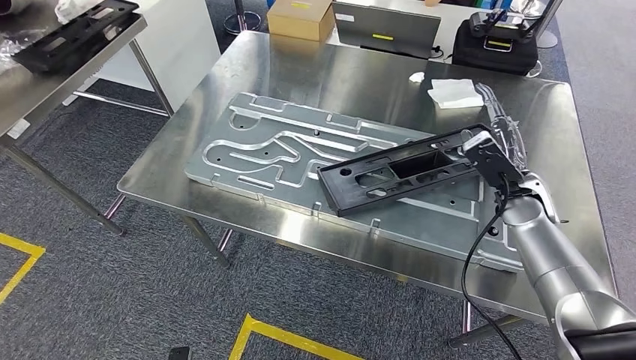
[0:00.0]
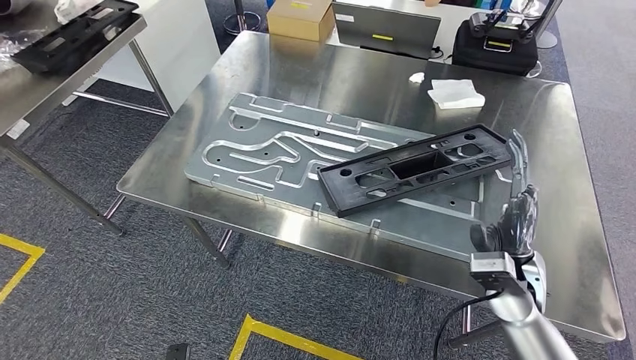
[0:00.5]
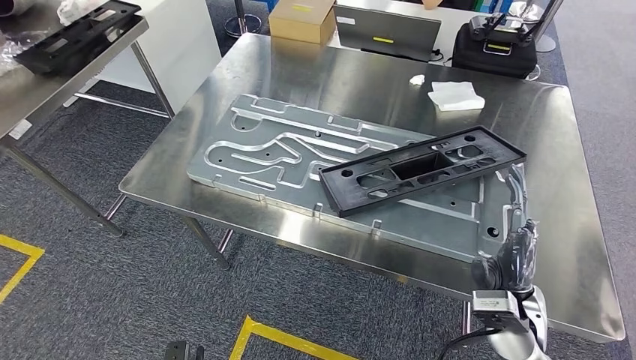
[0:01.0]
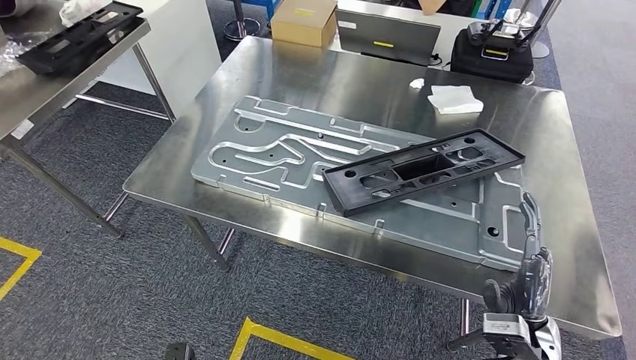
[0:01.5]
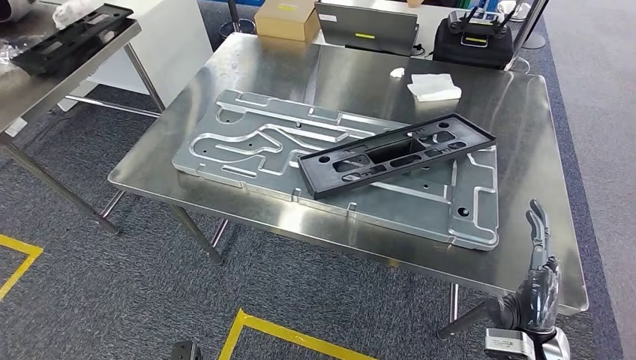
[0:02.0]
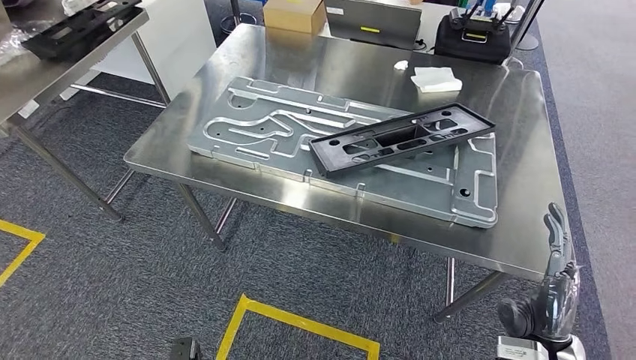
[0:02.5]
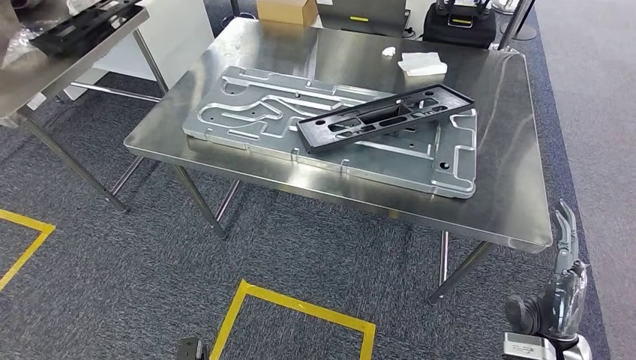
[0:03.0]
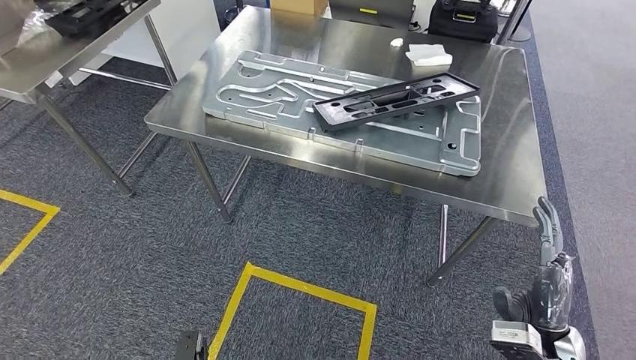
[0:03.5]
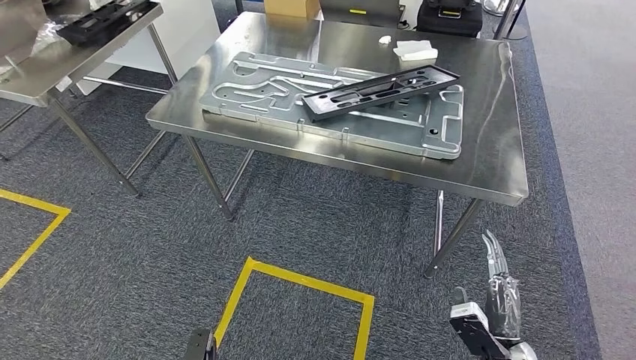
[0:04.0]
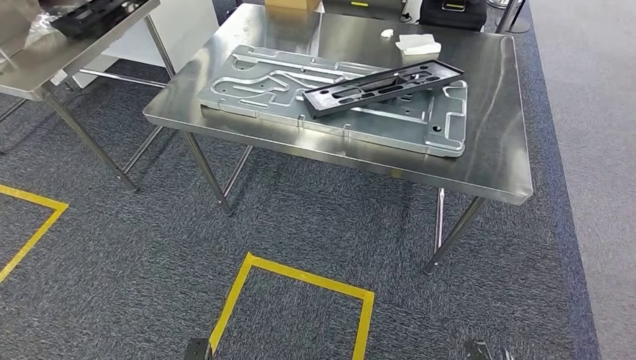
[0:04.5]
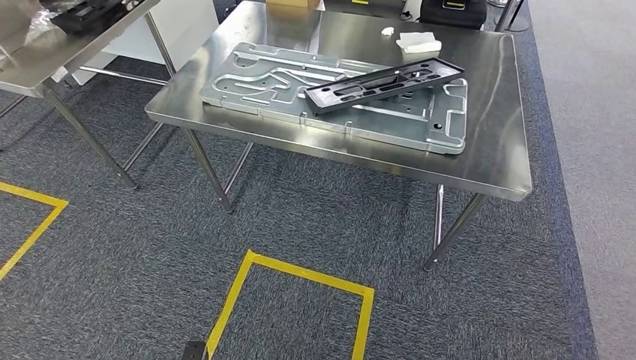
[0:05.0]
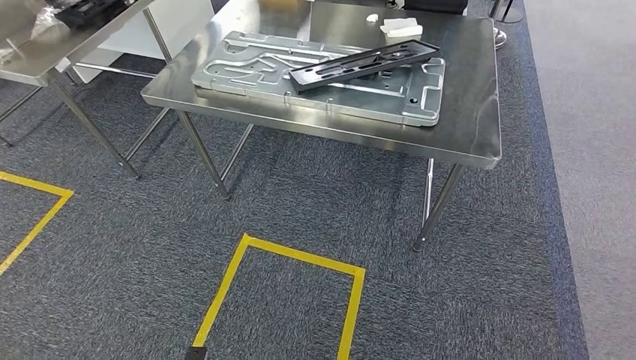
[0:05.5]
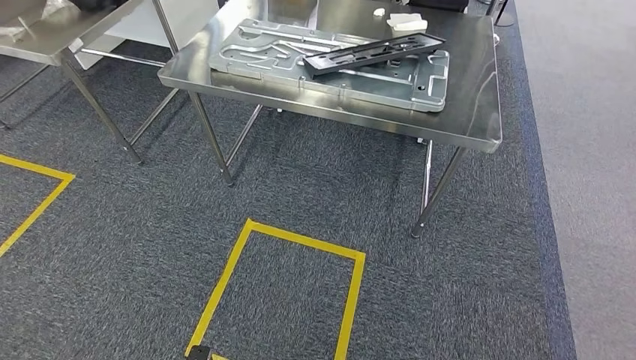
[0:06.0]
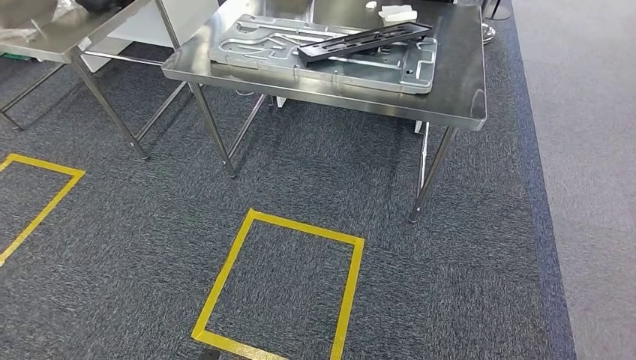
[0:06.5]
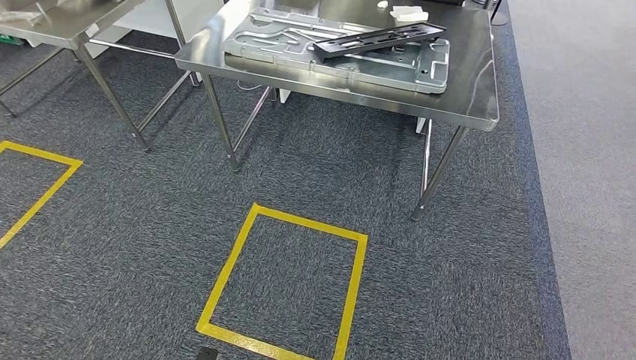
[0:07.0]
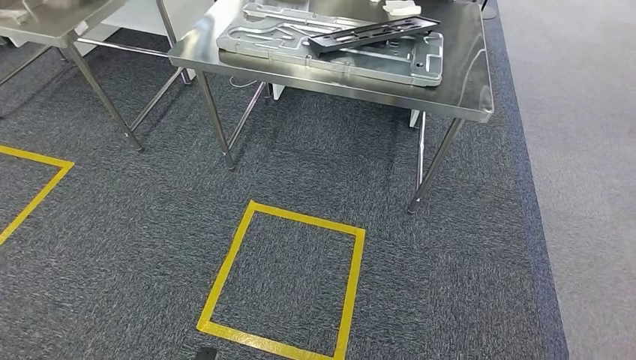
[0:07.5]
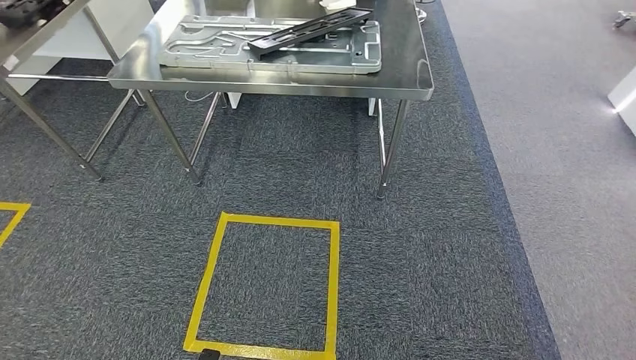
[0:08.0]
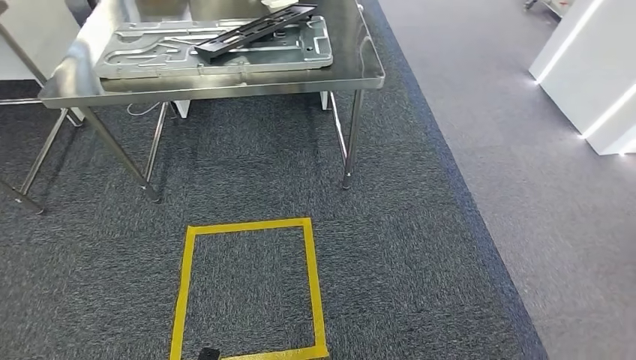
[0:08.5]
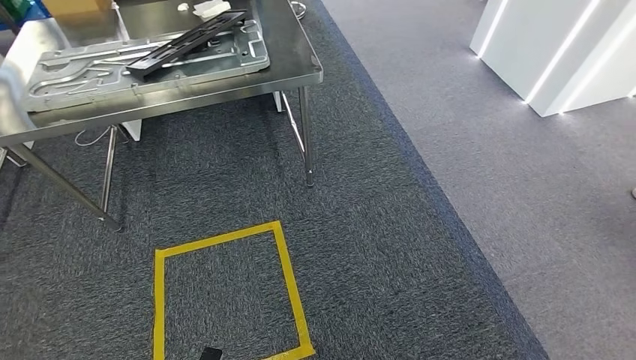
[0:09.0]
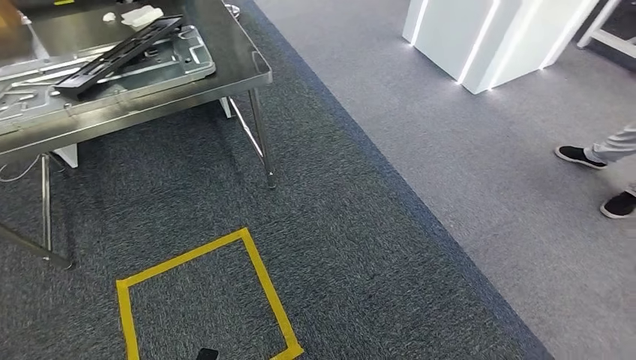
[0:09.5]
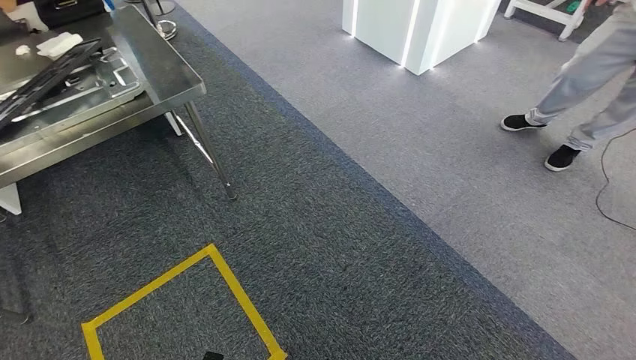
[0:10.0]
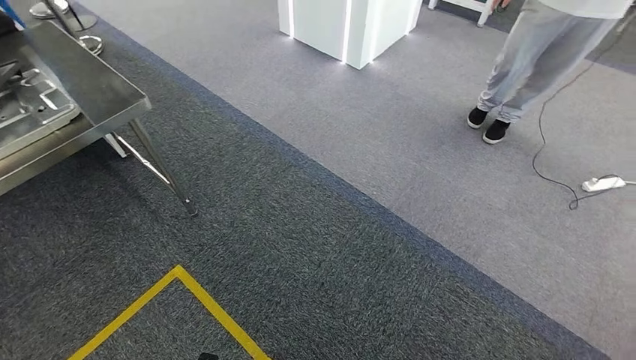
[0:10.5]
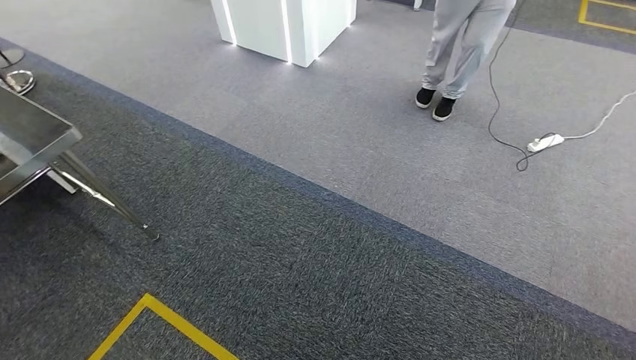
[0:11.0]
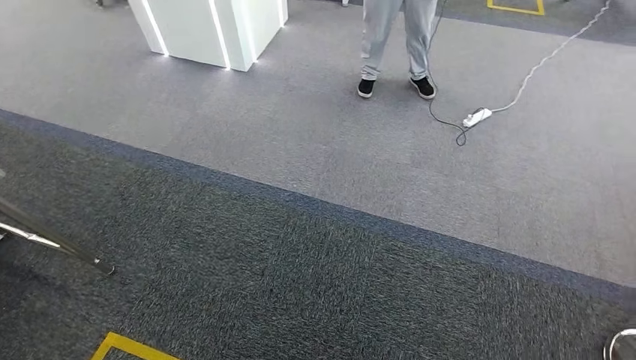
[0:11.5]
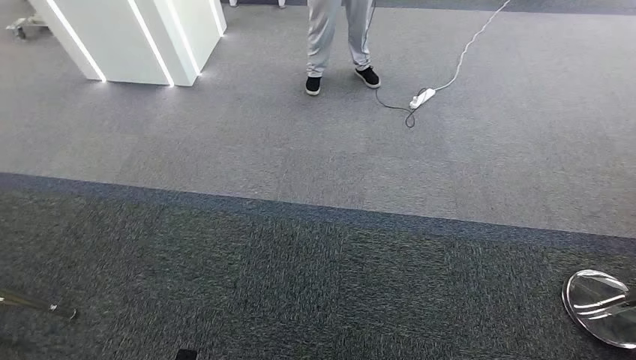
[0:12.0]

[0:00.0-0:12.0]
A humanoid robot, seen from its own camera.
Step, 0:00.0 to 0:03.0: Insert the large material into the corresponding slot on the workbench.

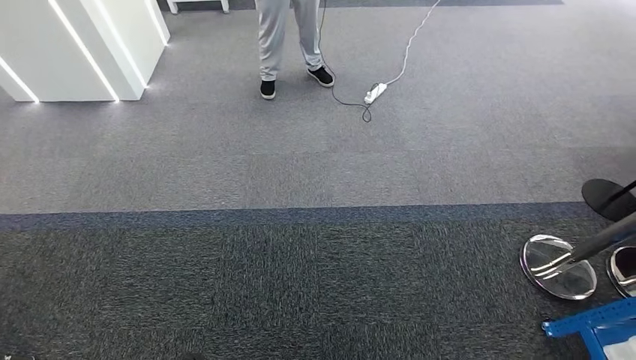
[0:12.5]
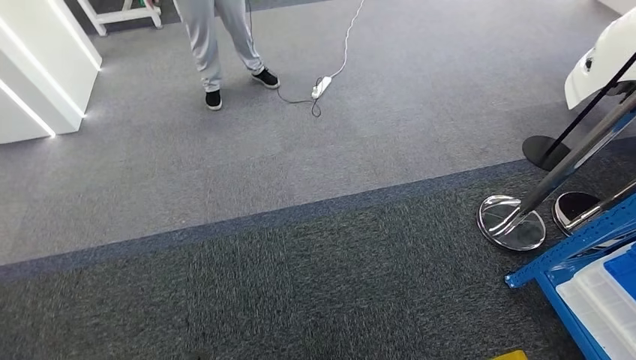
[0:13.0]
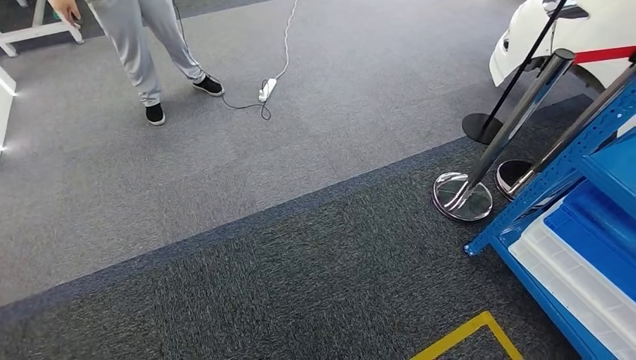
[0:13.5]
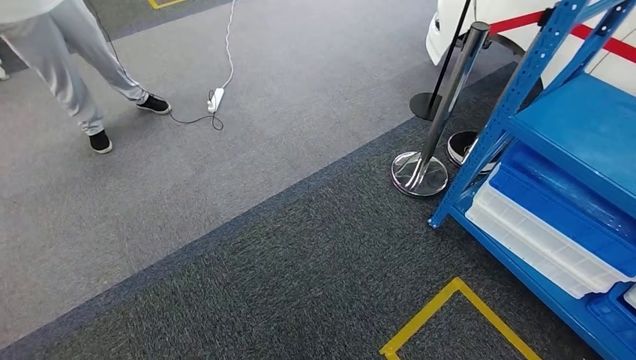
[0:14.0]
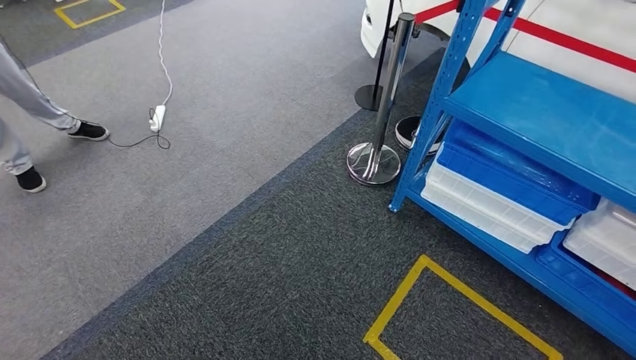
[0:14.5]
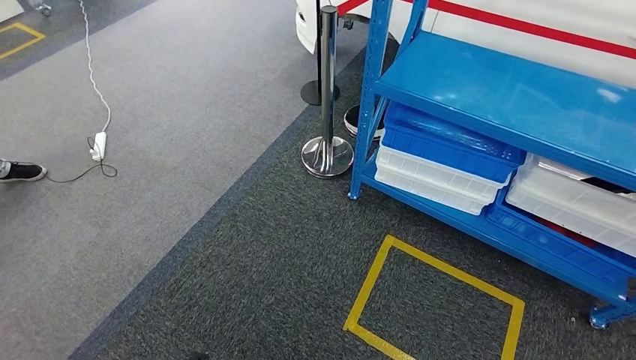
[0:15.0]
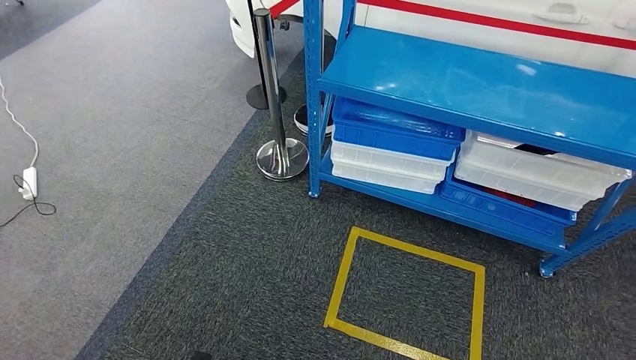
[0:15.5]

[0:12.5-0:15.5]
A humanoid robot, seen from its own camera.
Step, 0:12.5 to 0:15.5: Move to the initial position of the shelf.

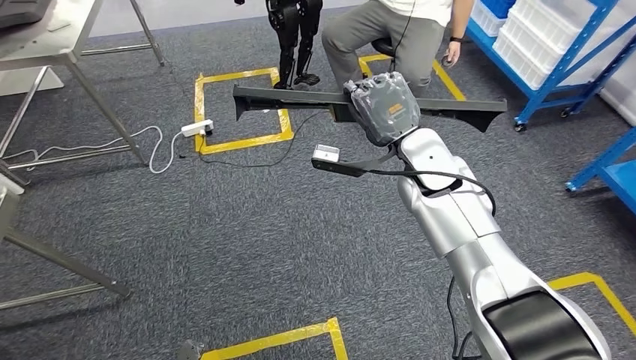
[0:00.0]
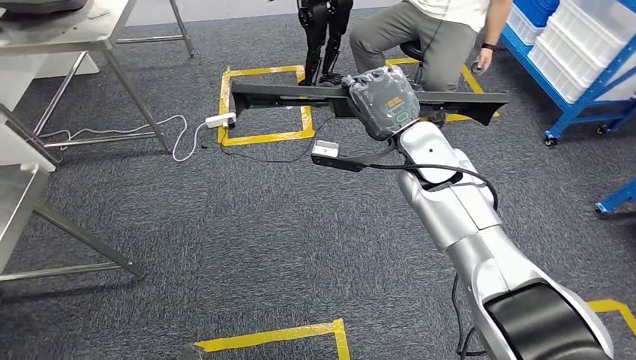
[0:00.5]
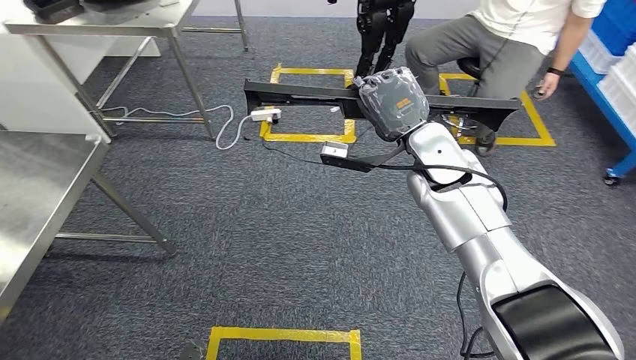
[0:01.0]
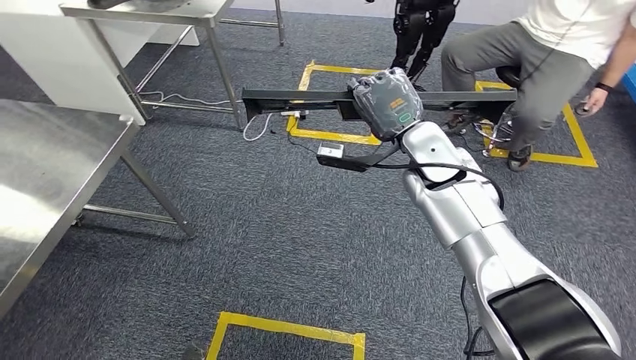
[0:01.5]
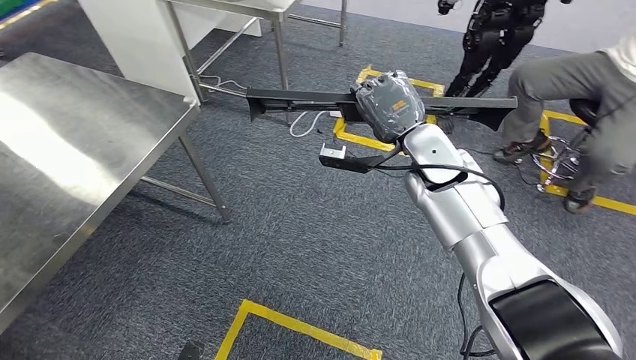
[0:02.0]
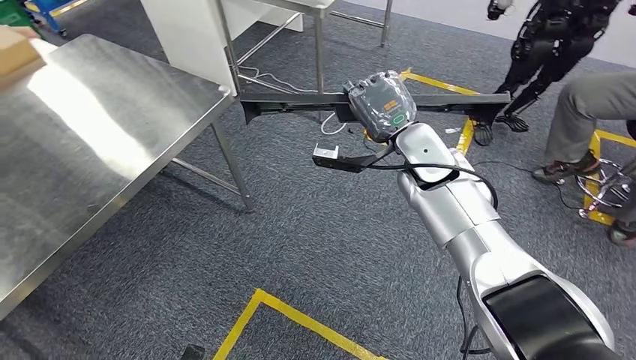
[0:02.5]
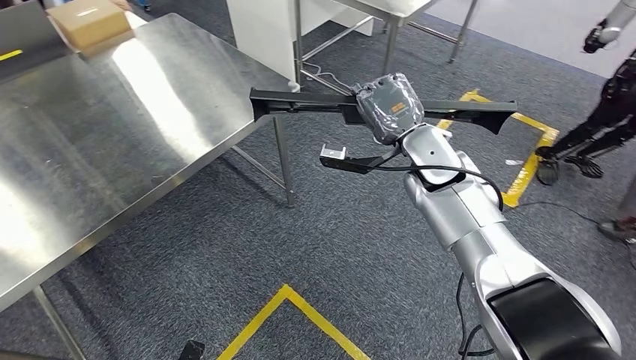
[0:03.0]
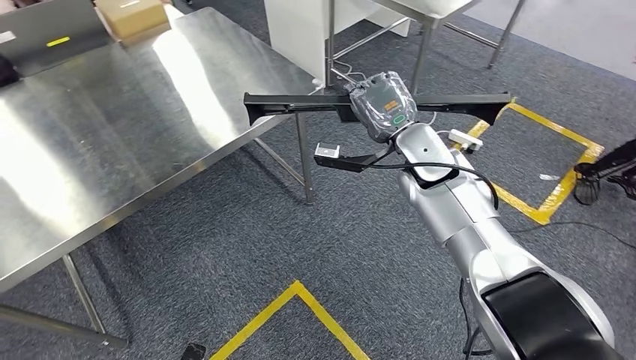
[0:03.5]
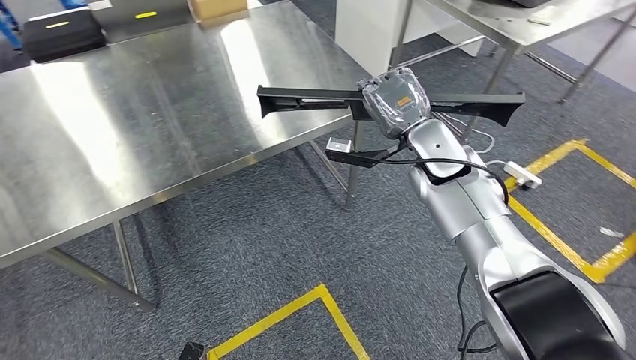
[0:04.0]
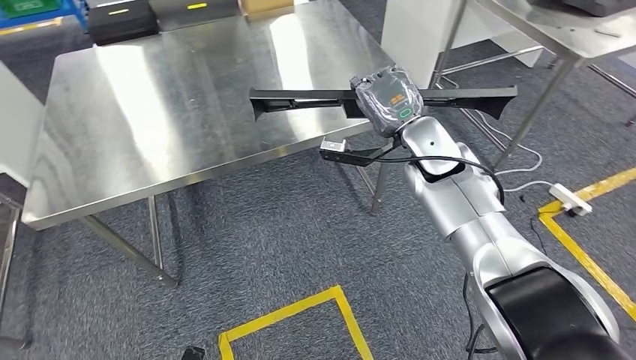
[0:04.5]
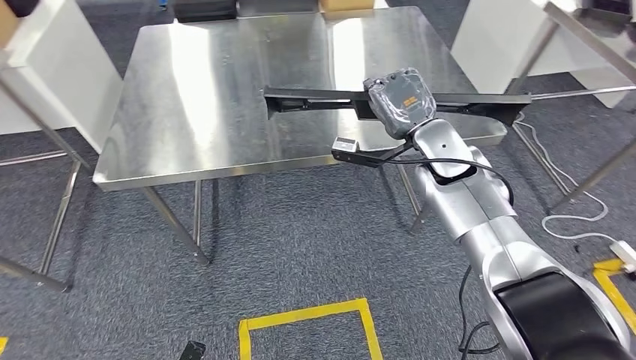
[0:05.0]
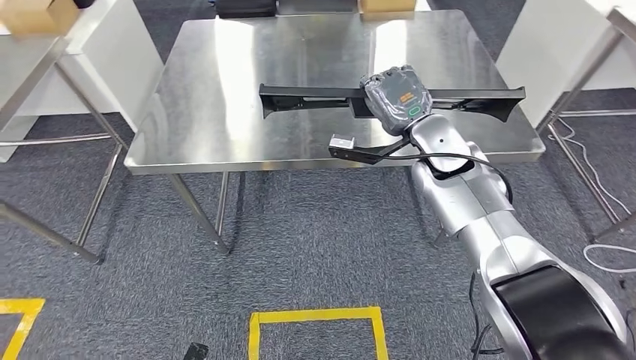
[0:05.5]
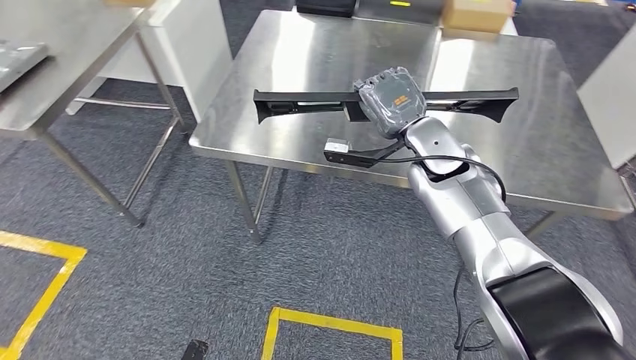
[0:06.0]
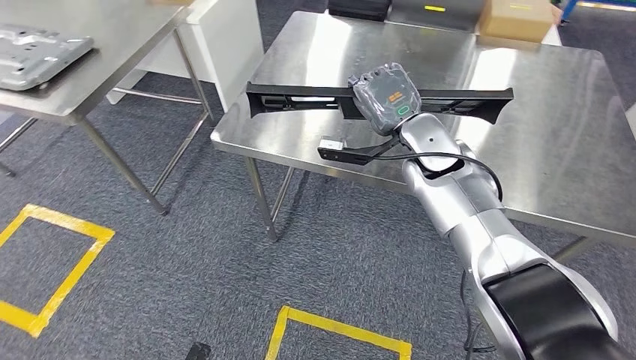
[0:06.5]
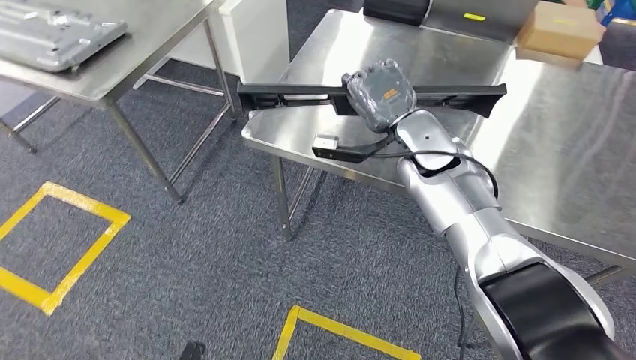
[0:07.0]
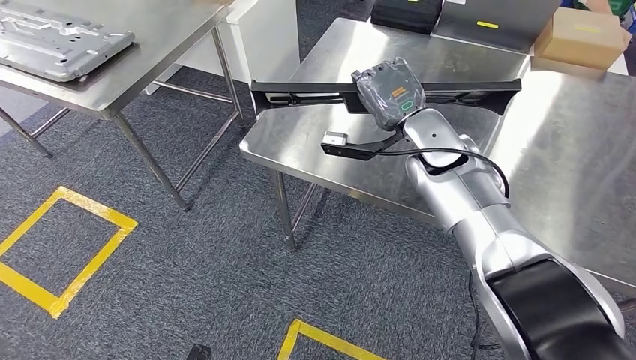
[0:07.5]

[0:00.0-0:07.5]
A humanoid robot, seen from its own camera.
Step, 0:00.0 to 0:06.0: Move the large material to the workbench.
